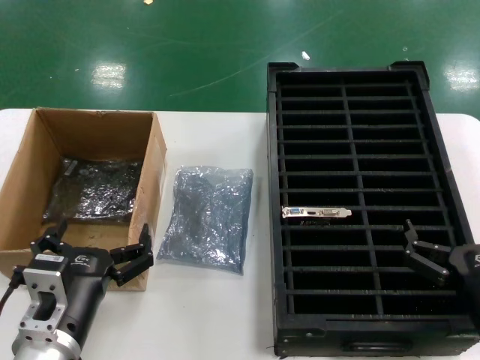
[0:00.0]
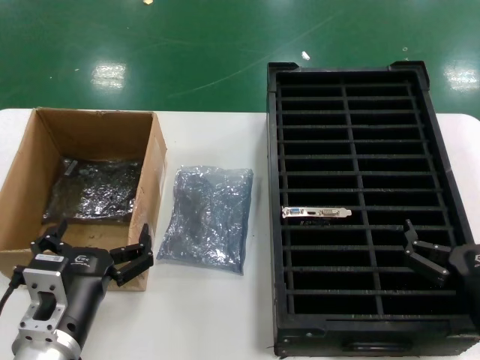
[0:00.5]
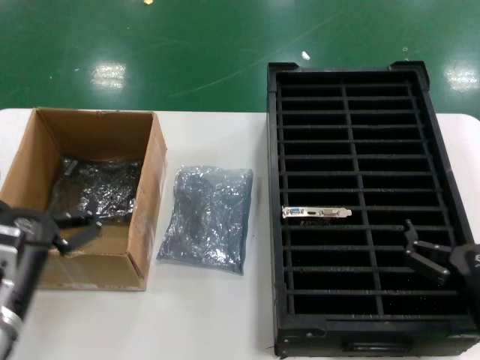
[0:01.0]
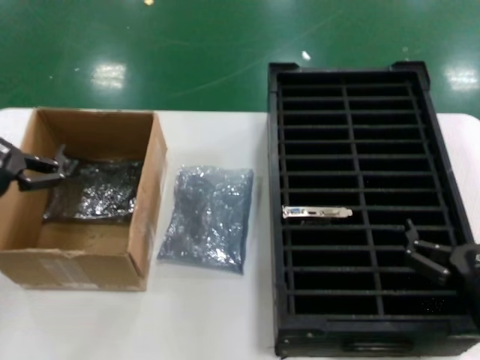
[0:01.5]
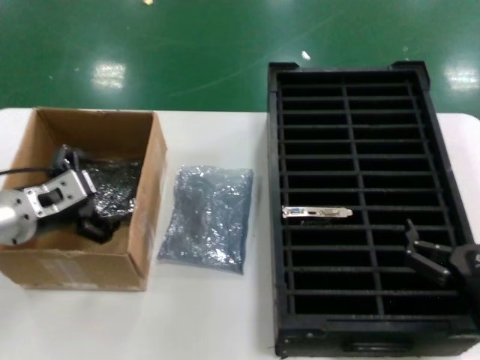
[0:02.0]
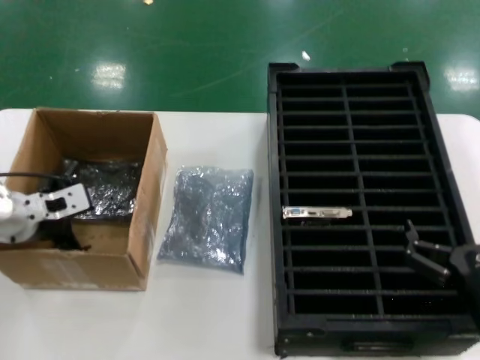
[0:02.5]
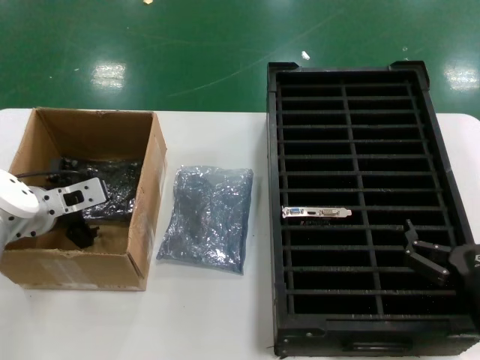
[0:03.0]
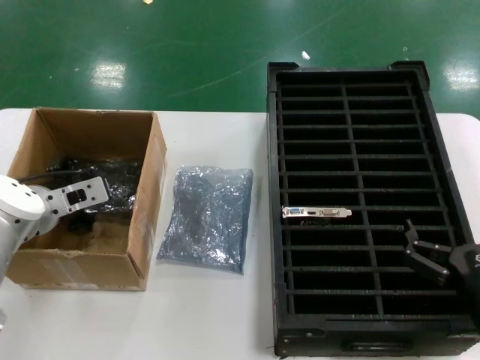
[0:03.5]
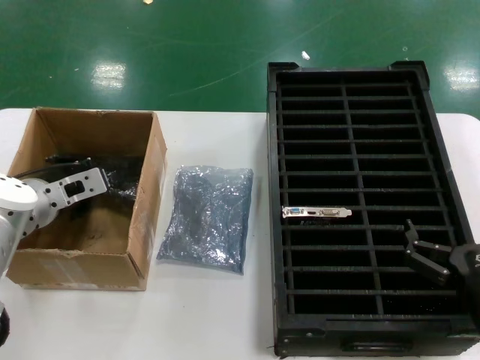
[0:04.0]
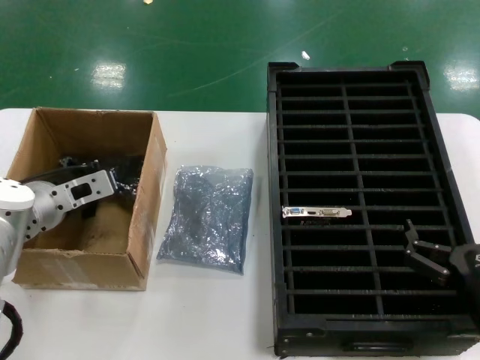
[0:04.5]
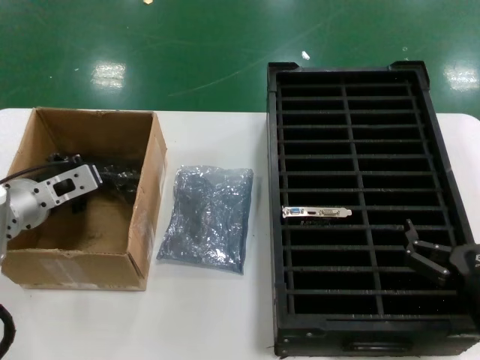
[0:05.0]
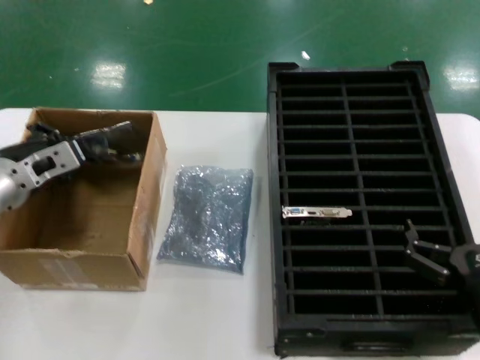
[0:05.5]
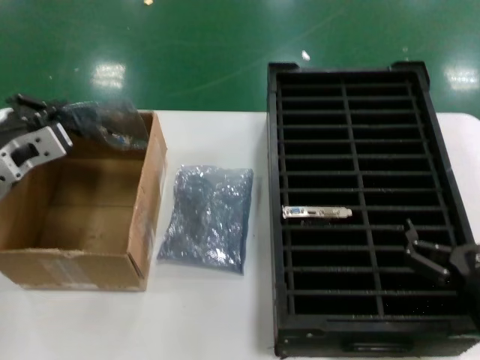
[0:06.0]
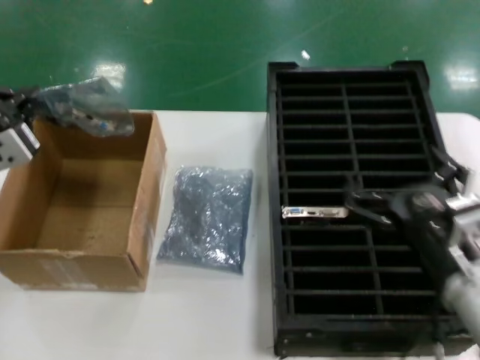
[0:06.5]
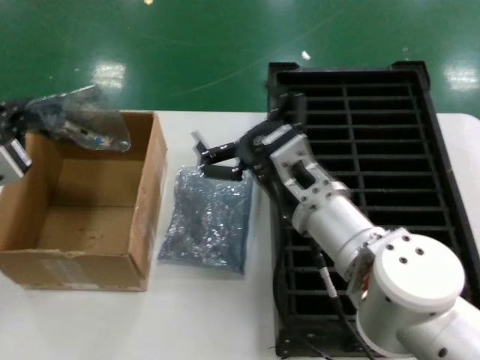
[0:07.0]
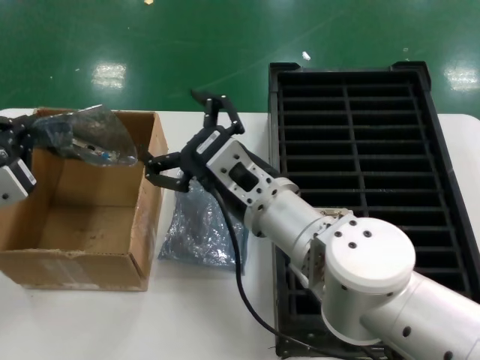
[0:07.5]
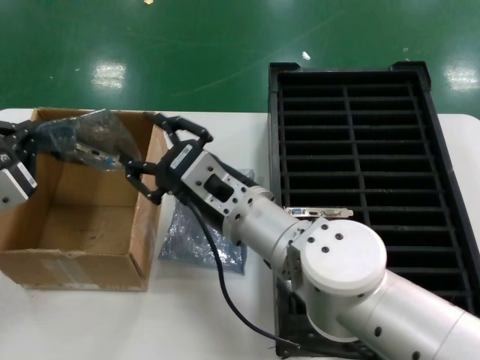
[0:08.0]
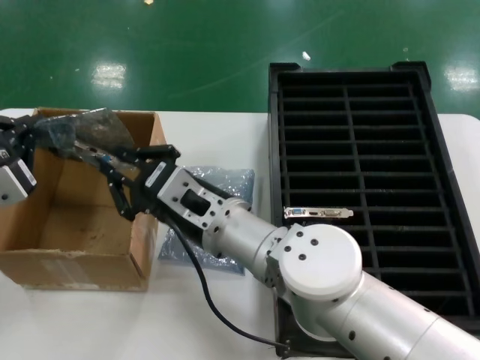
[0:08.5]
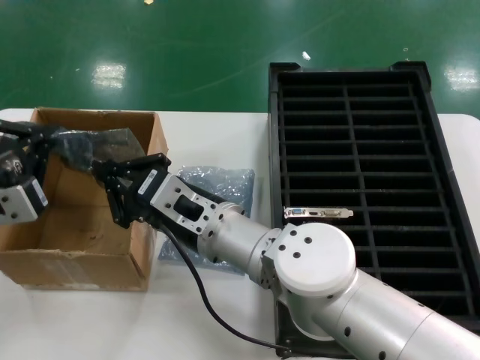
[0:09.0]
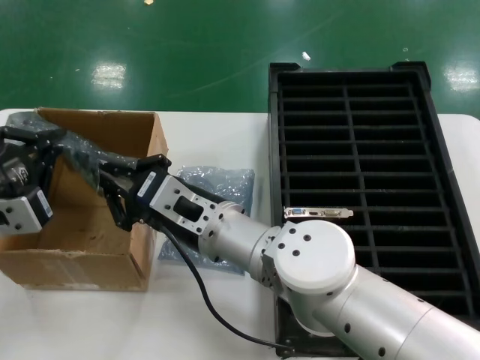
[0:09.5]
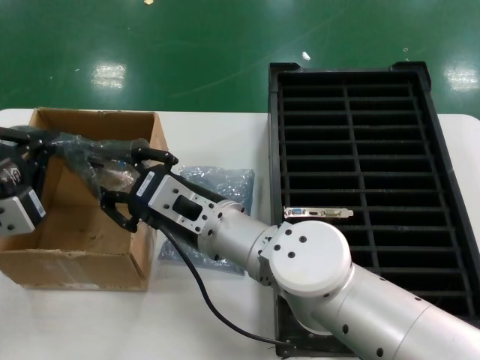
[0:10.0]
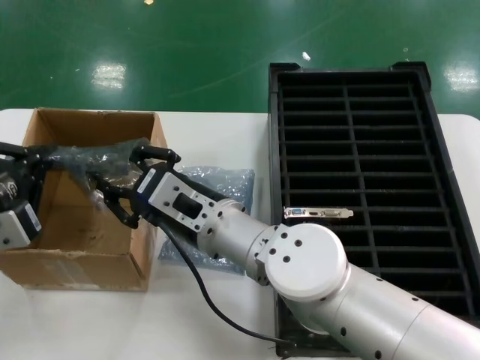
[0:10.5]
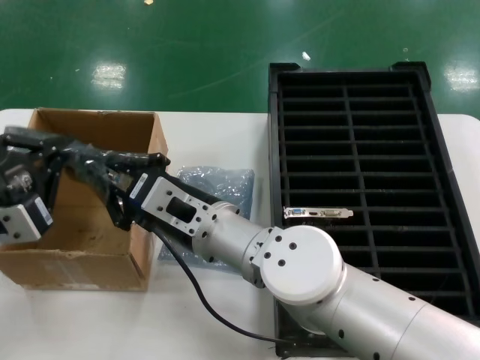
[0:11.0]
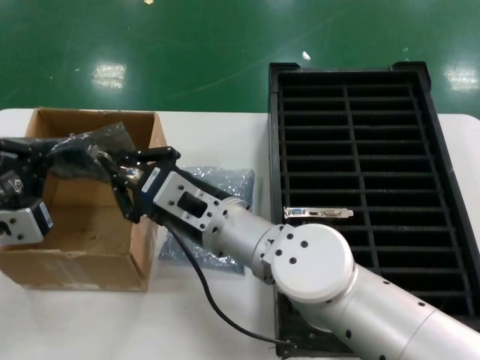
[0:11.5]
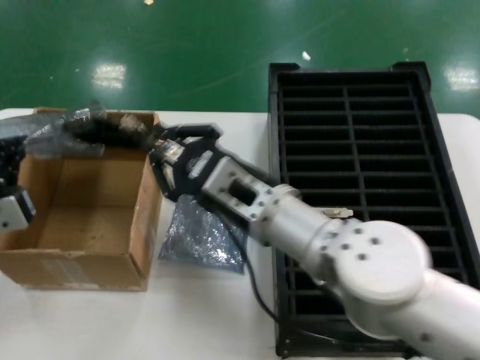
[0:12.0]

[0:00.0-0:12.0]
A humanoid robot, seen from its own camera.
Task of the whole recording: take out graphics card from box remove packaging put into black container.
Step, 0.0 to 4.0 s: Grasp the bag.
Step, 4.5 to 6.5 s: Lift the bag.
0.0 to 2.0 s: The left hand moves forward, to the left and upward, approximately 20 cm.
2.0 to 4.0 s: The left hand goes approximately 5 cm forward.
4.0 to 6.0 s: The left hand goes some 10 cm backward and upward.
6.0 to 8.0 s: The right hand moves to the left and forward, some 30 cm; the left hand goes roughly 10 cm backward.
10.0 to 12.0 s: The right hand travels to the right by approximately 5 cm.

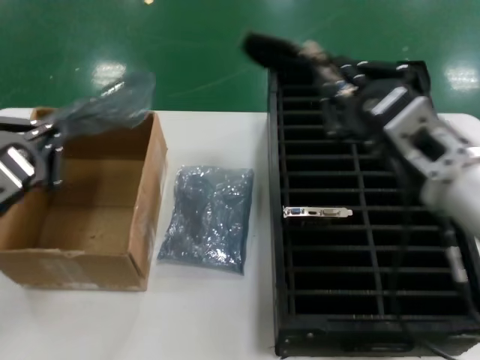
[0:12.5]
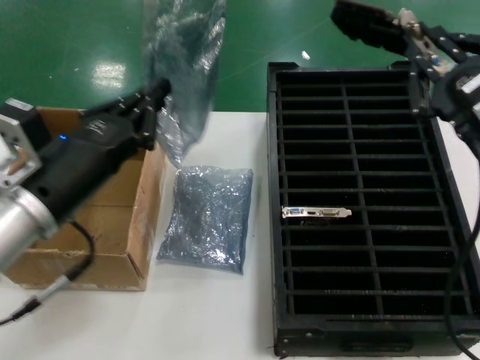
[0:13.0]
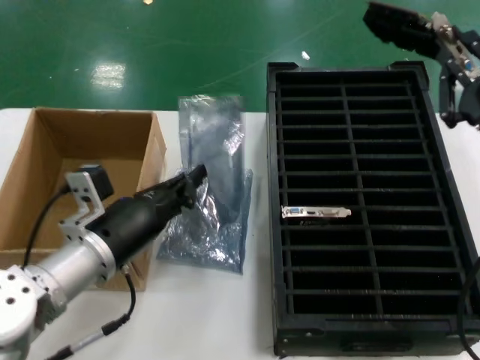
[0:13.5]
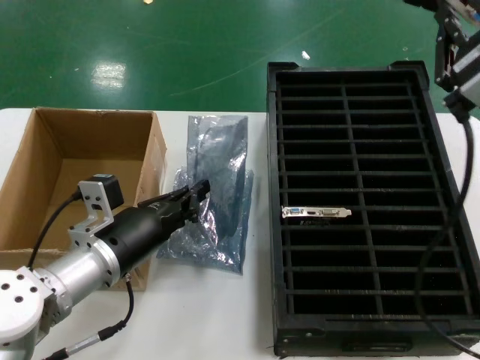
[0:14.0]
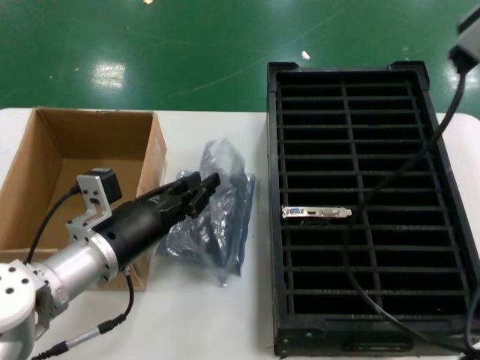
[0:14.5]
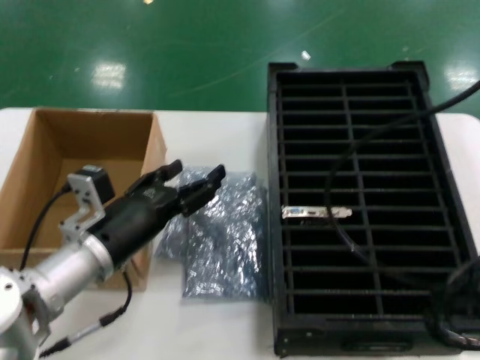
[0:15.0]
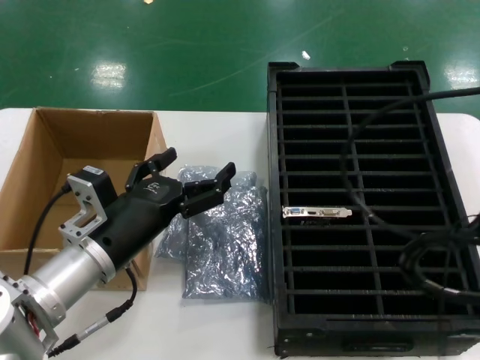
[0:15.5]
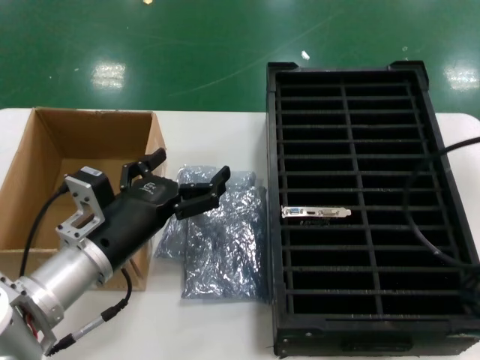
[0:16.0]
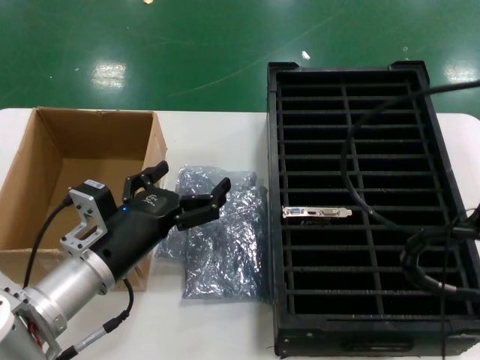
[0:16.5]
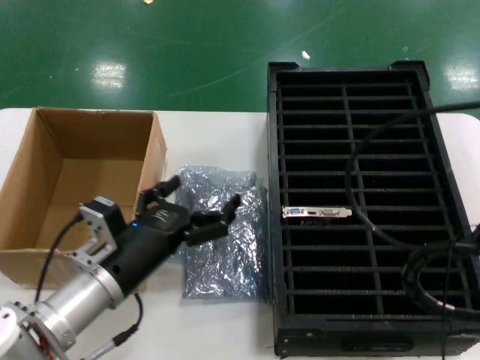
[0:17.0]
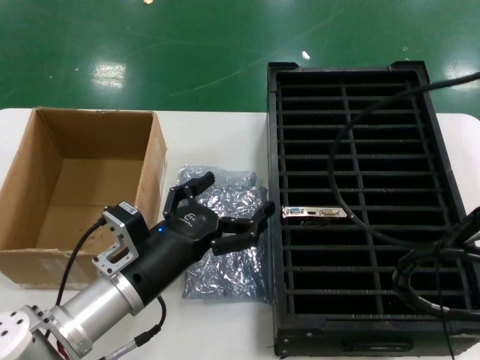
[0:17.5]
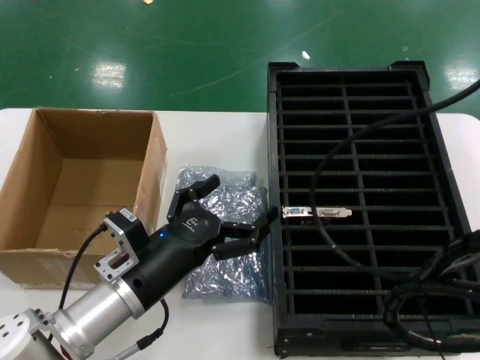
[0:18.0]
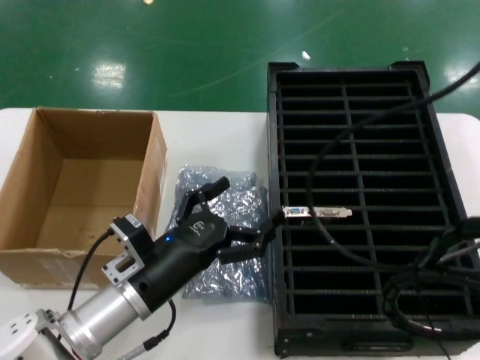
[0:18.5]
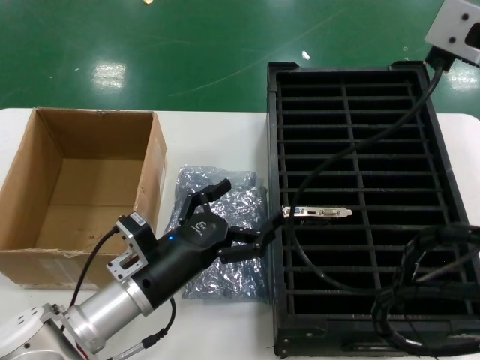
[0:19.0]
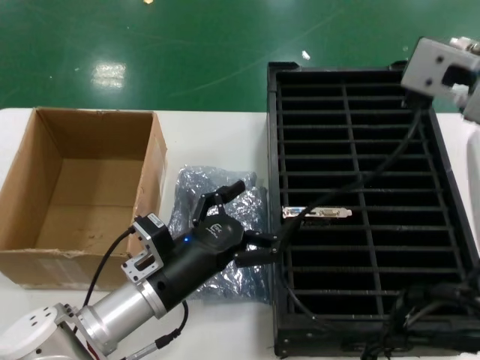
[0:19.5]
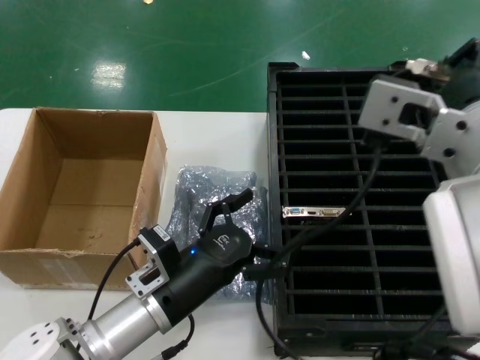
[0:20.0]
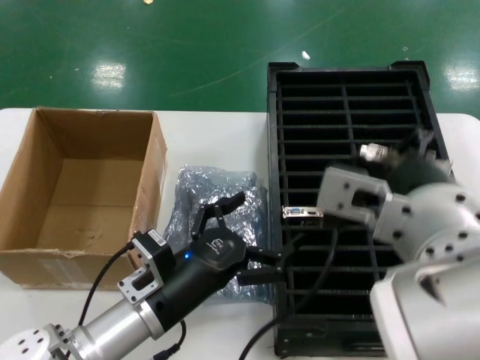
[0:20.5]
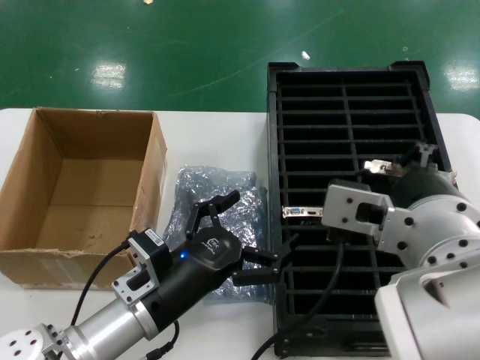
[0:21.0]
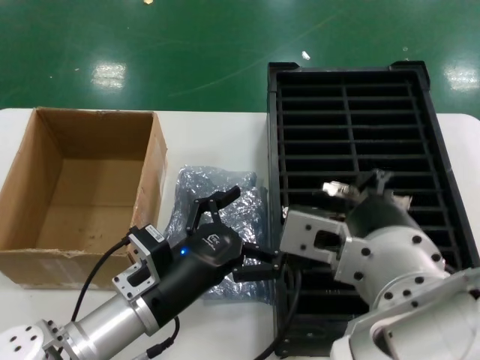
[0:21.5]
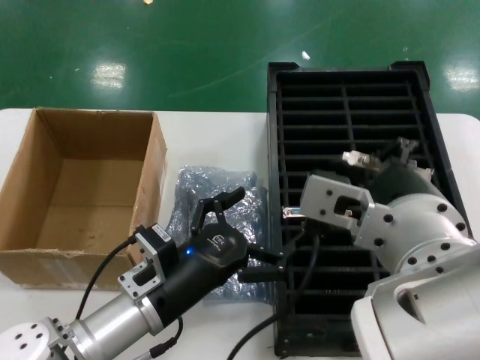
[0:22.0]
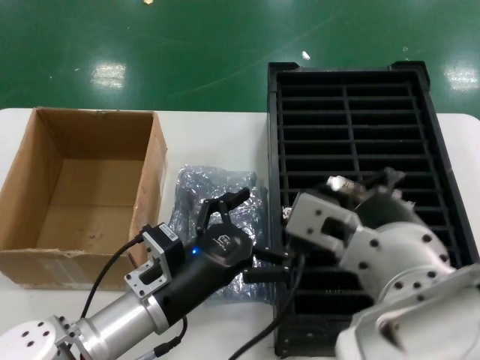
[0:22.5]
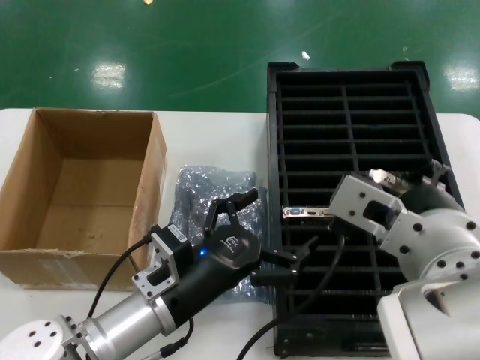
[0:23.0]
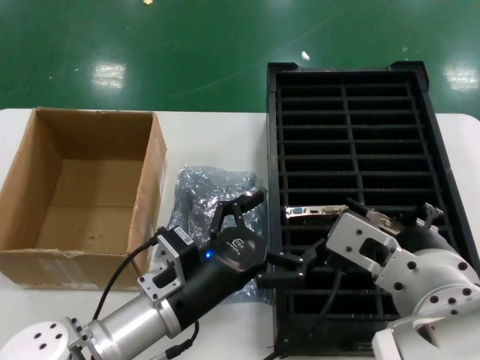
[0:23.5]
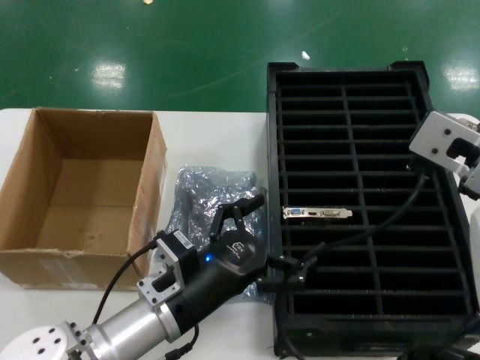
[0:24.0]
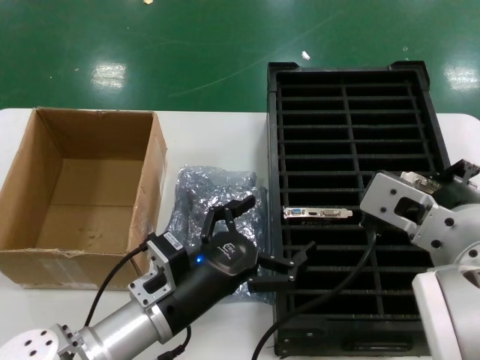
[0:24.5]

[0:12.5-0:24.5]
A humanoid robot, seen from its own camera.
Task of the whole recording: take out graphics card from box remove packaging put into black container.
Step, 12.5 to 14.5 s: Place the down the bag.
12.5 to 14.5 s: The right hand goes approximately 10 cm upward and backward. Meanwhile the left hand heads downward, to the right and forward, covering about 15 cm.
14.5 to 16.5 s: The right hand moves upward, some 10 cm.
16.5 to 18.5 s: The left hand moves downward, some 5 cm.
18.5 to 20.5 s: The right hand shifts roughly 15 cm downward and to the left.
22.5 to 24.5 s: The right hand shifts some 5 cm to the right.

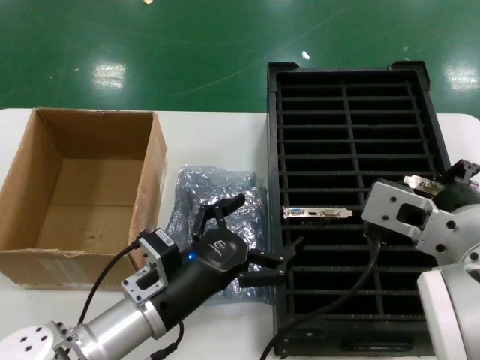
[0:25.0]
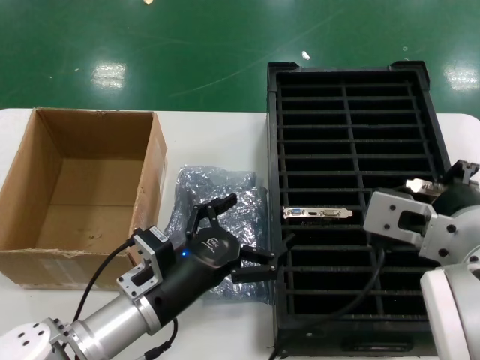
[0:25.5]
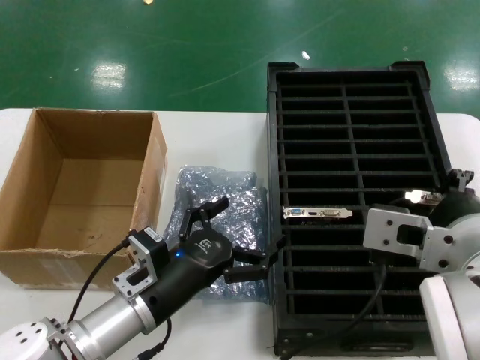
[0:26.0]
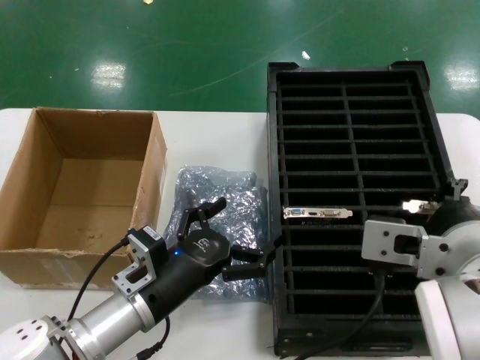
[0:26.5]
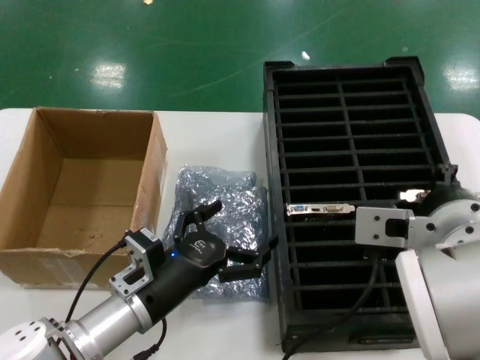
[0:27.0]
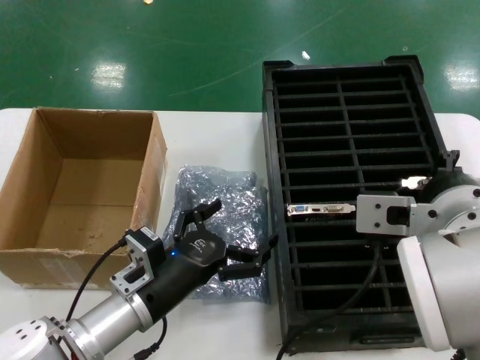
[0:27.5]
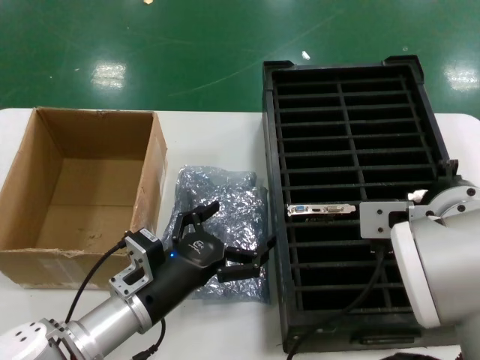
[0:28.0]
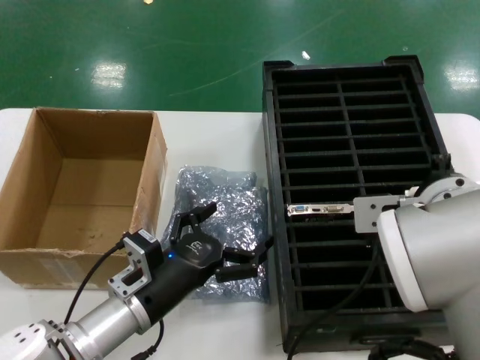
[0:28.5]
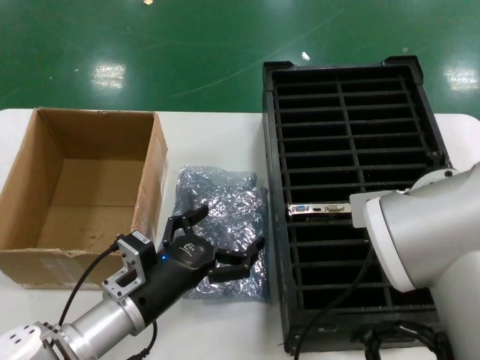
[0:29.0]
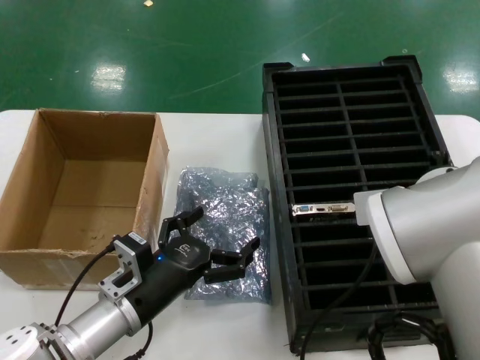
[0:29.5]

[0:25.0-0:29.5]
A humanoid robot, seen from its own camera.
Task of the whole recording: take out graphics card from box remove packaging put into black container.
27.0 to 29.5 s: The right hand is displaced forward by roughly 5 cm.
